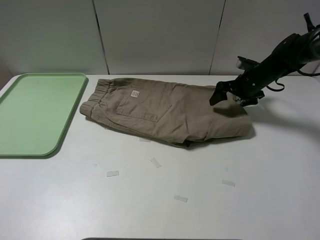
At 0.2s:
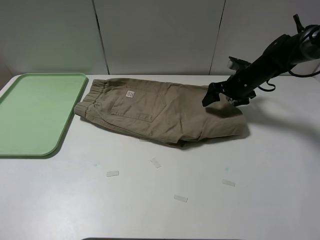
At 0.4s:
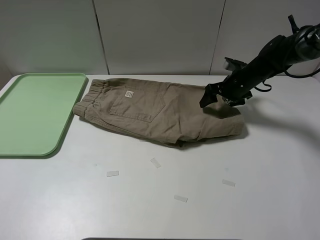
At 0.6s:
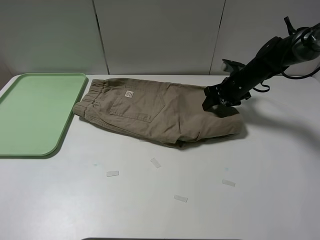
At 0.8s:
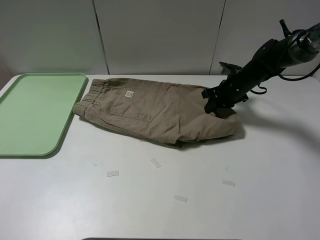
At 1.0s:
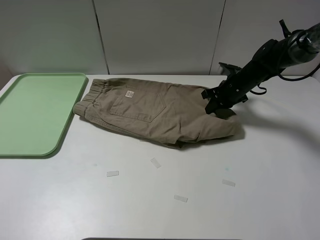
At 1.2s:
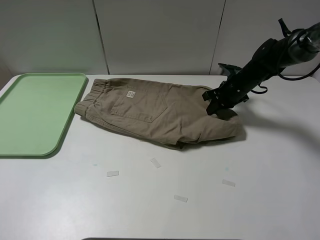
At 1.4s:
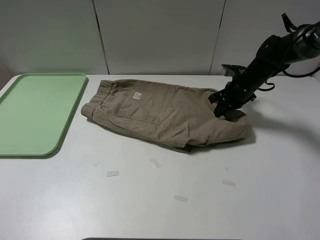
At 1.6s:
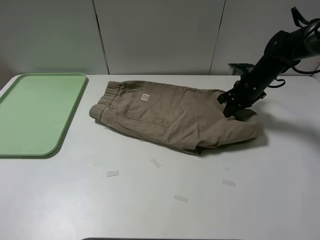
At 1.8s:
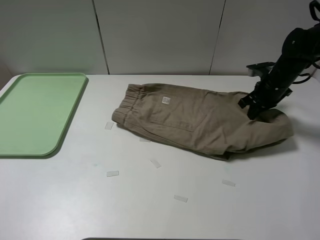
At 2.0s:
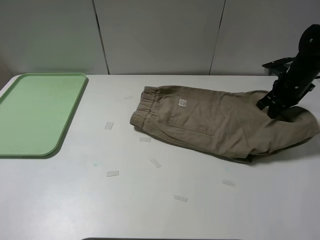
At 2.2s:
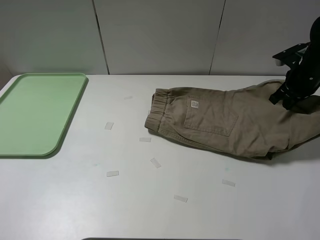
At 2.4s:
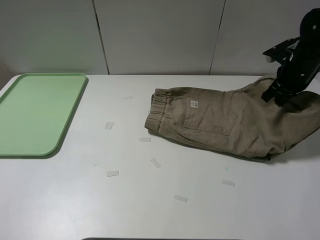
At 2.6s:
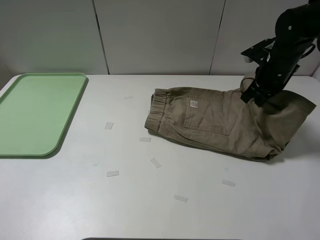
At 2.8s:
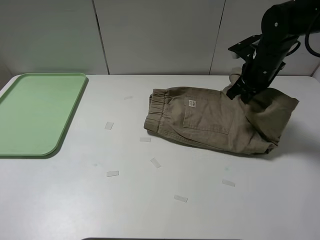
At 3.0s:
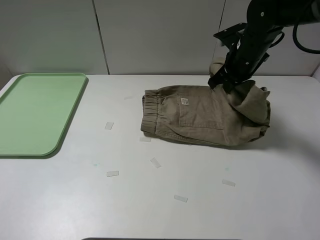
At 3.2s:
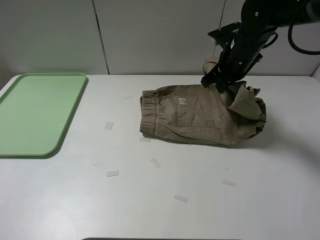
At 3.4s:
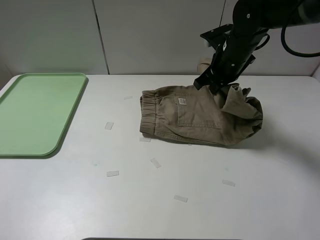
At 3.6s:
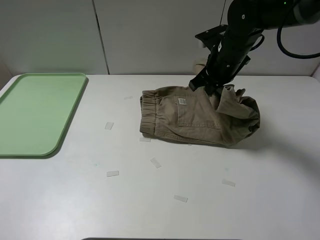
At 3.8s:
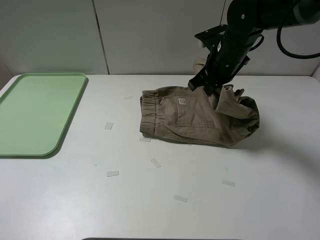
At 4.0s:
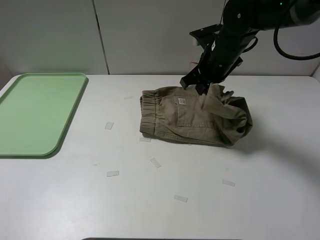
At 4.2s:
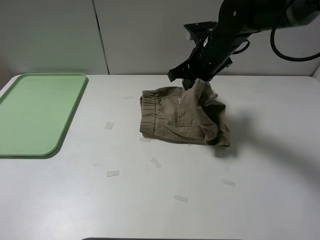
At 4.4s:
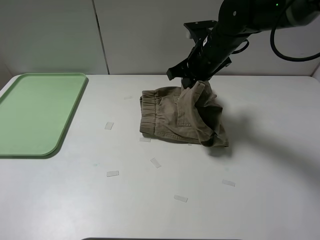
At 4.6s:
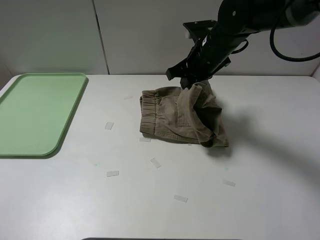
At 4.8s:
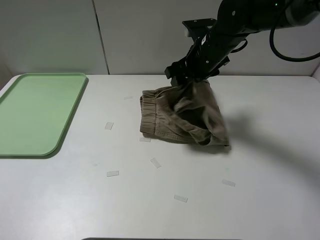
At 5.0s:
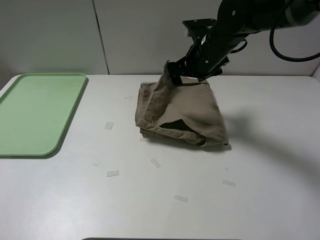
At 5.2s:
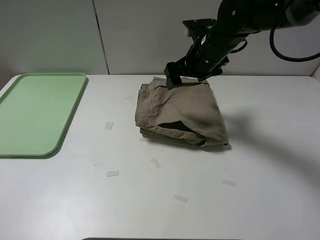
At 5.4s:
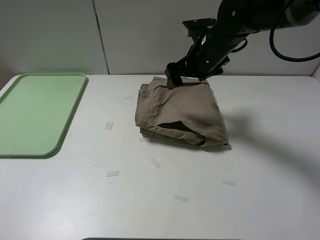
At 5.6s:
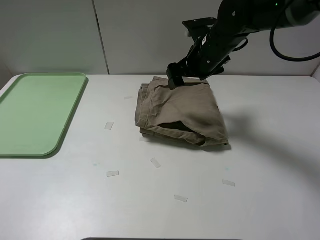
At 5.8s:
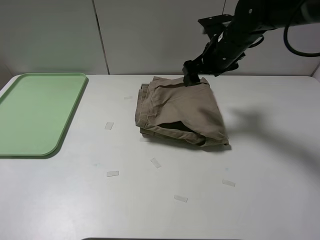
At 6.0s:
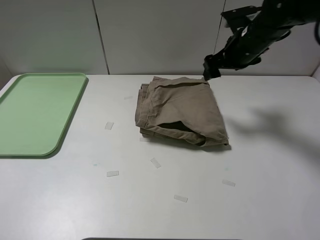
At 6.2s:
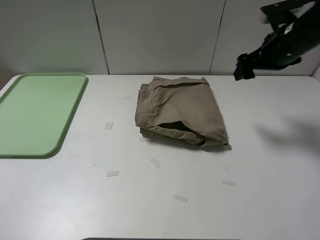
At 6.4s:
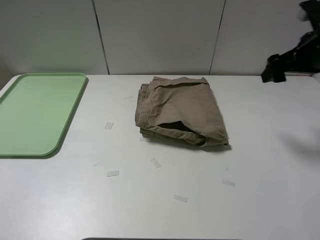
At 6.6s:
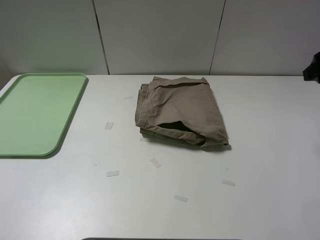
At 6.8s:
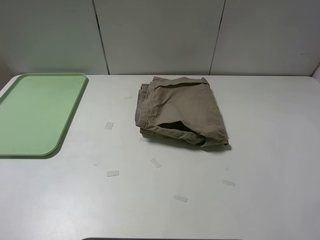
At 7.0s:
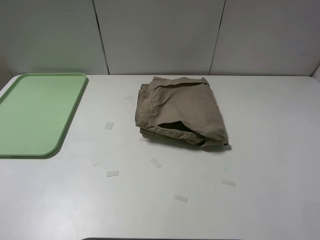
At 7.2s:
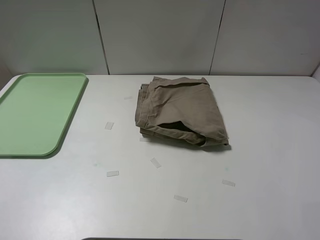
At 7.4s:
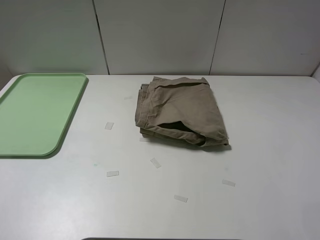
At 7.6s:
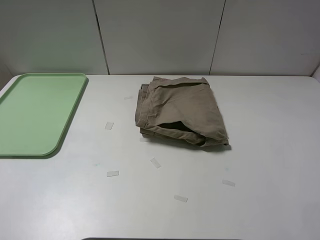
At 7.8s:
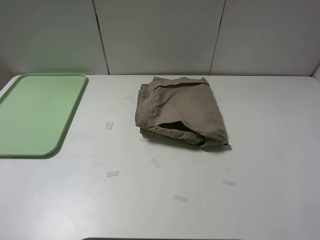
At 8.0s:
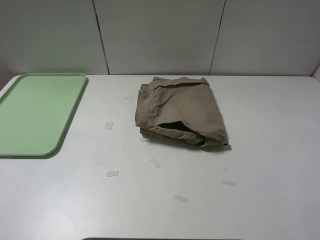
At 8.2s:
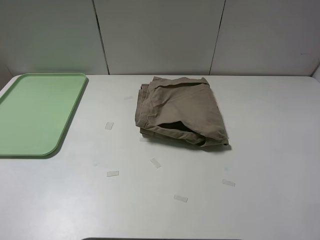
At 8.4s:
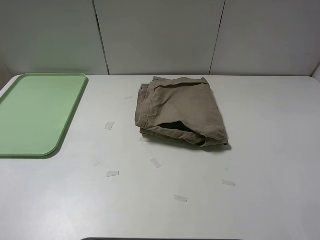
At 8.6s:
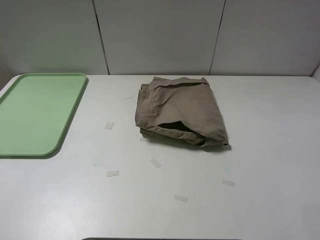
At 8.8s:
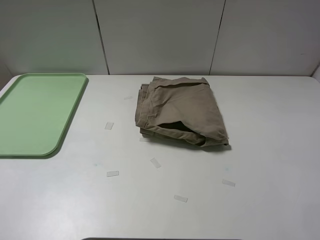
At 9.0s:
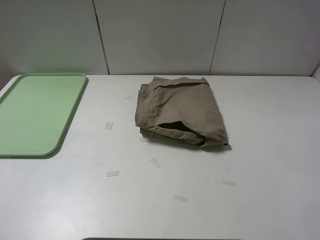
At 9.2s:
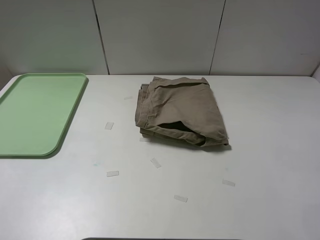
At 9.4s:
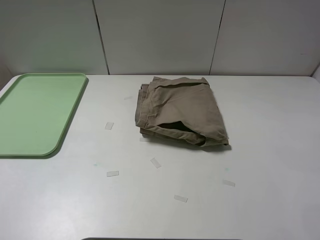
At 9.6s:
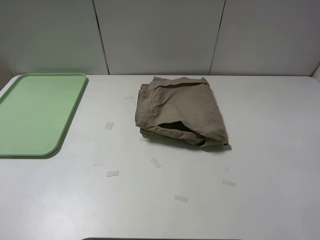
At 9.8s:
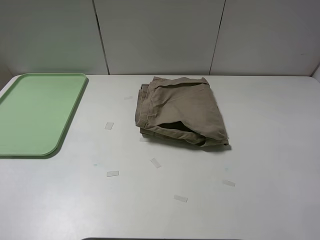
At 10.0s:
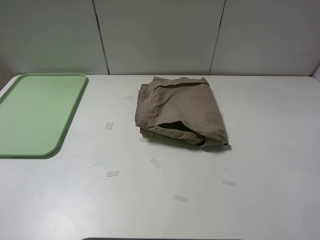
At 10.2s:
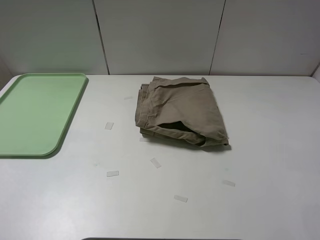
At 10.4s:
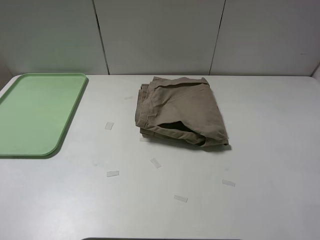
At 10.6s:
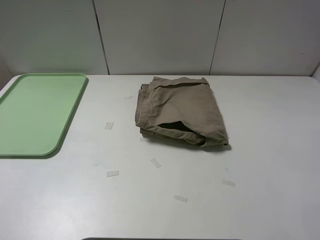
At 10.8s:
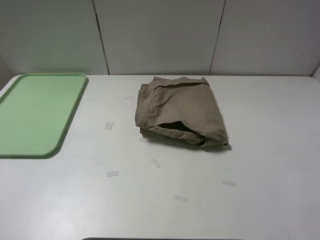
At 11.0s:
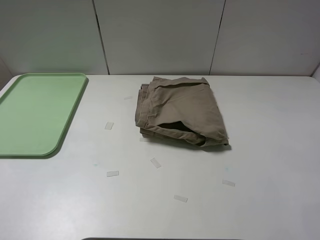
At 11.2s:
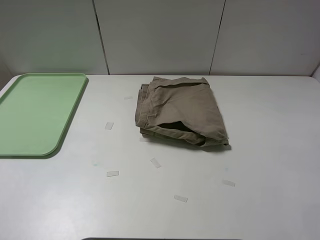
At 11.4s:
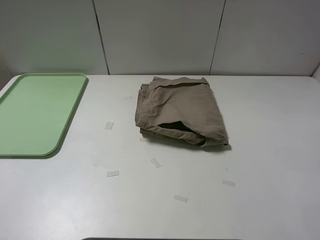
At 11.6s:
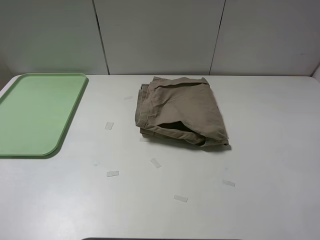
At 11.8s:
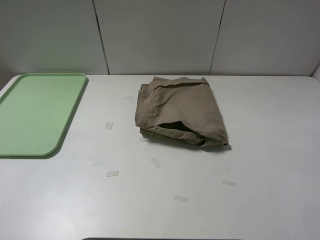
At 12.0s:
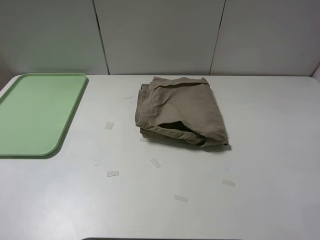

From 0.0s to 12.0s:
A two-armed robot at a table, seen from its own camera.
Task of the whole recording: fold the khaki jeans in half with two grippers, then fold them in half again, and use the left claw to place the folded fold khaki jeans on the tray.
Step, from 1.0s to 5.0s: Fold the khaki trousers from right to left with the right gripper.
From 0.0s to 1.6s: The right gripper closes.
From 1.6s to 3.0s: The right gripper shifts approximately 10 cm upward and to the left.
From 3.0s to 4.4s: The right gripper moves to the left, about 5 cm.
From 4.4s to 6.0s: The right gripper moves to the right, approximately 10 cm, and opens up.
From 6.0s to 7.6s: The right gripper heads backward and upward, covering about 40 cm.
From 10.4s to 12.0s: Both grippers stay put.

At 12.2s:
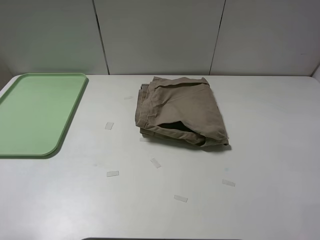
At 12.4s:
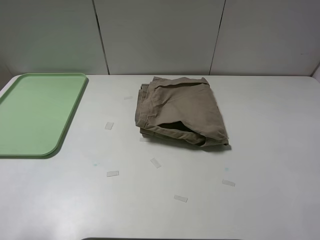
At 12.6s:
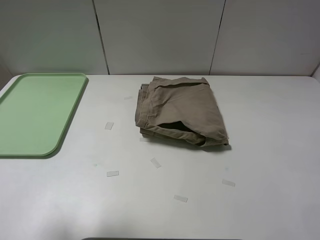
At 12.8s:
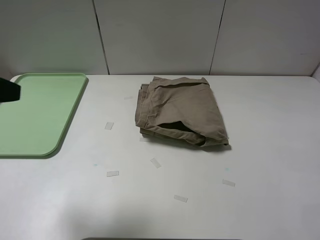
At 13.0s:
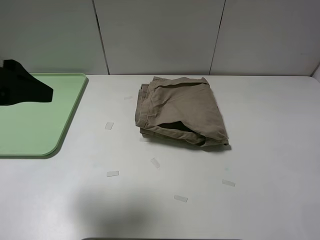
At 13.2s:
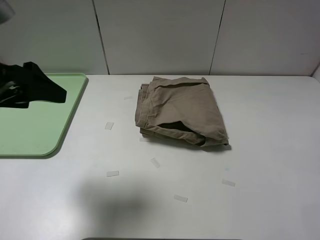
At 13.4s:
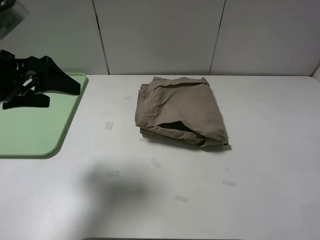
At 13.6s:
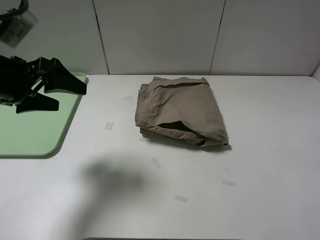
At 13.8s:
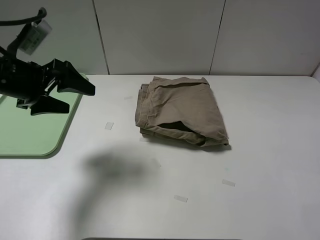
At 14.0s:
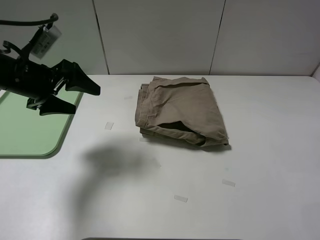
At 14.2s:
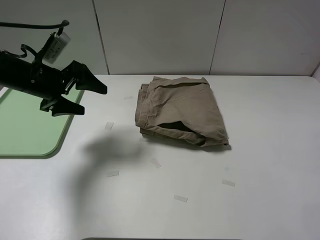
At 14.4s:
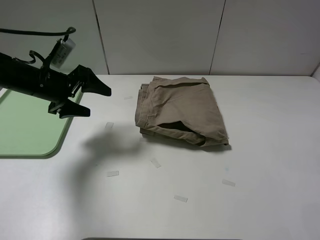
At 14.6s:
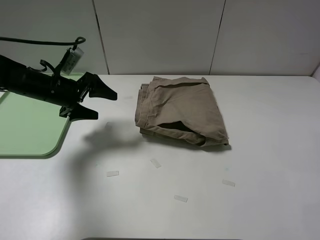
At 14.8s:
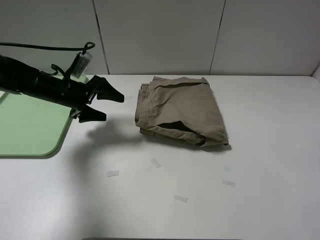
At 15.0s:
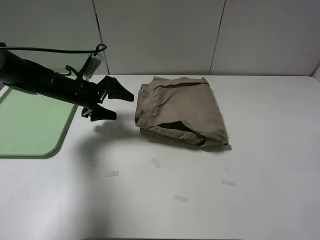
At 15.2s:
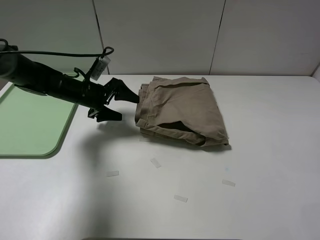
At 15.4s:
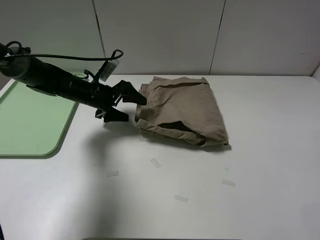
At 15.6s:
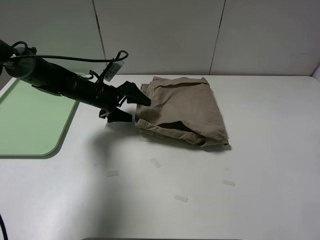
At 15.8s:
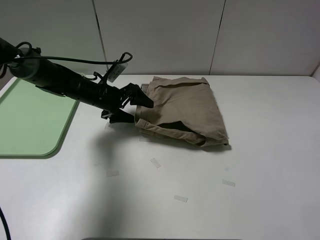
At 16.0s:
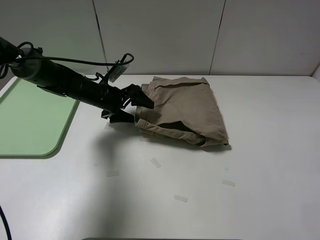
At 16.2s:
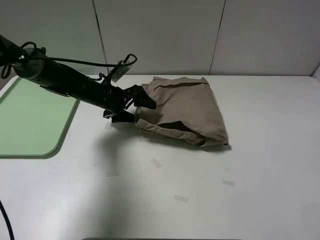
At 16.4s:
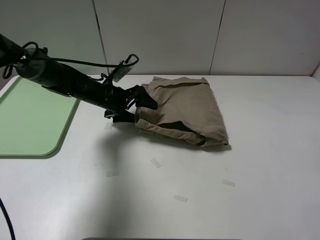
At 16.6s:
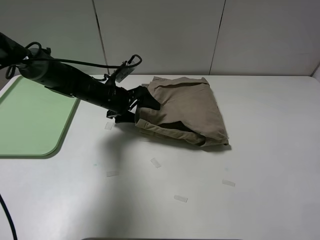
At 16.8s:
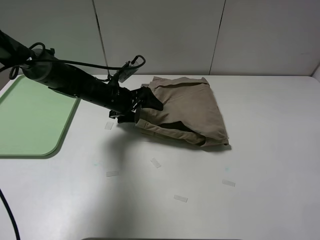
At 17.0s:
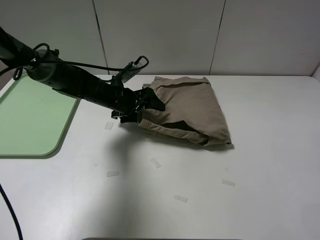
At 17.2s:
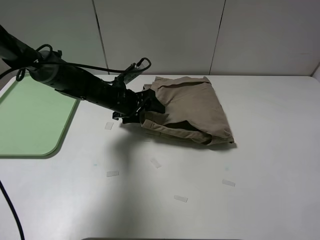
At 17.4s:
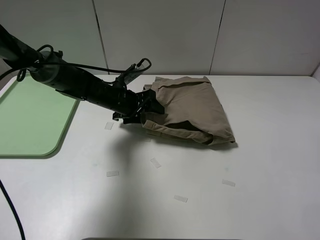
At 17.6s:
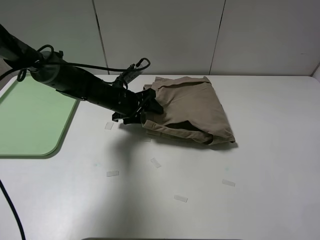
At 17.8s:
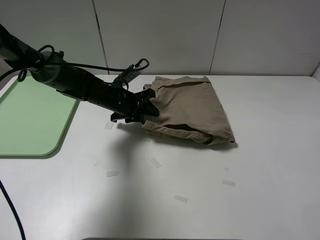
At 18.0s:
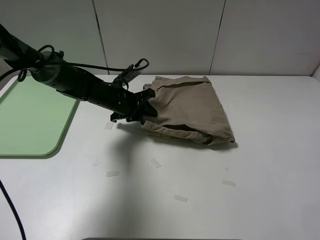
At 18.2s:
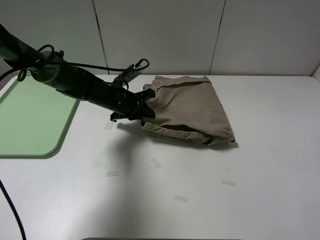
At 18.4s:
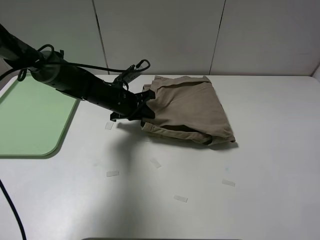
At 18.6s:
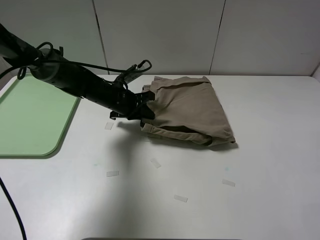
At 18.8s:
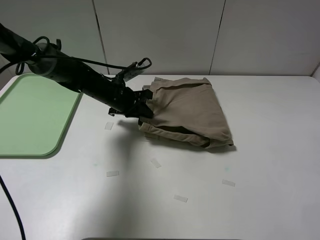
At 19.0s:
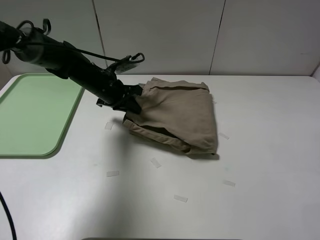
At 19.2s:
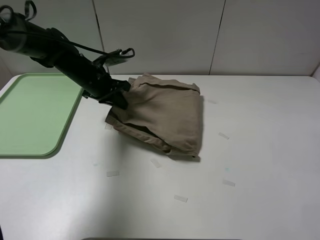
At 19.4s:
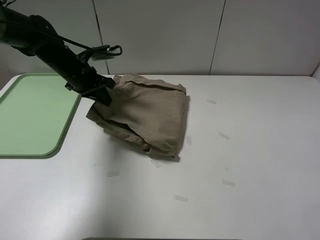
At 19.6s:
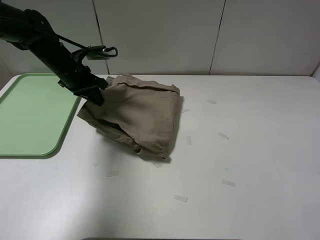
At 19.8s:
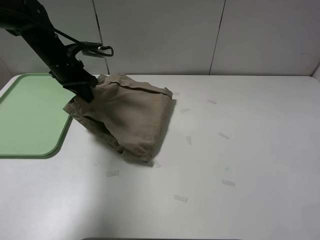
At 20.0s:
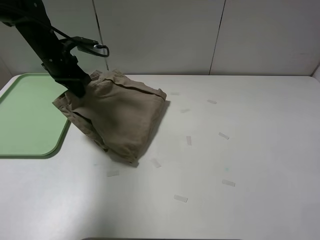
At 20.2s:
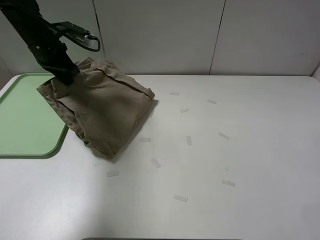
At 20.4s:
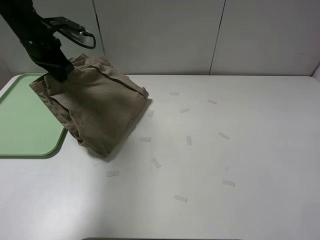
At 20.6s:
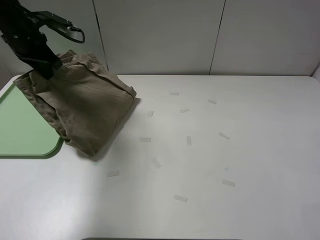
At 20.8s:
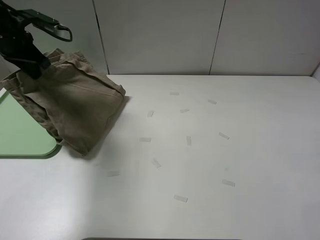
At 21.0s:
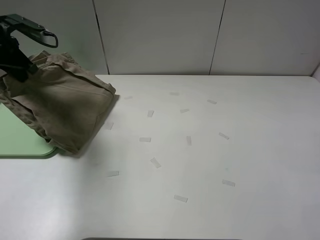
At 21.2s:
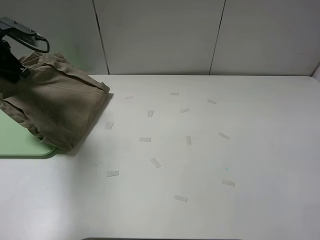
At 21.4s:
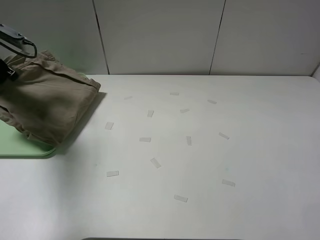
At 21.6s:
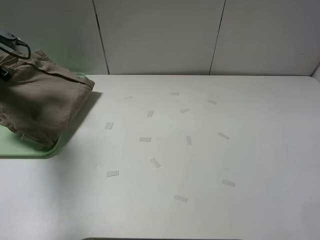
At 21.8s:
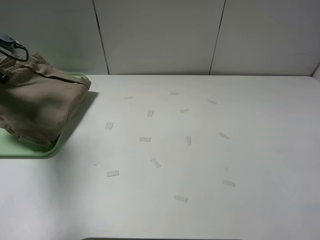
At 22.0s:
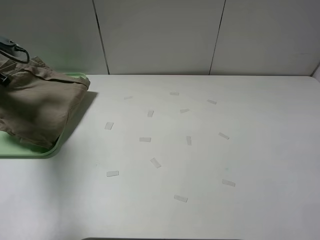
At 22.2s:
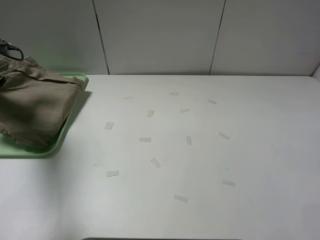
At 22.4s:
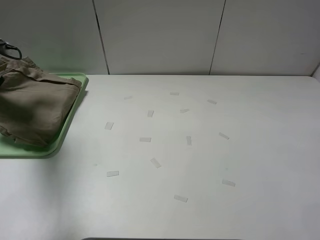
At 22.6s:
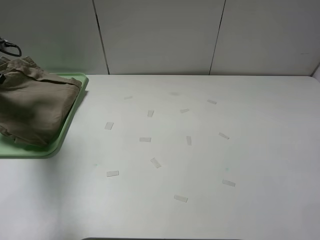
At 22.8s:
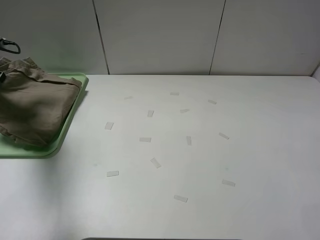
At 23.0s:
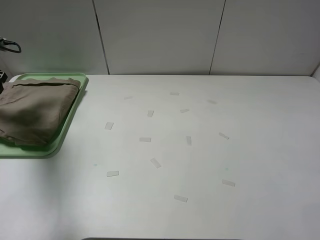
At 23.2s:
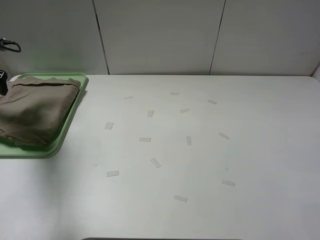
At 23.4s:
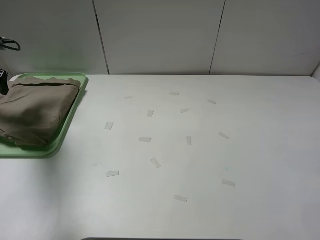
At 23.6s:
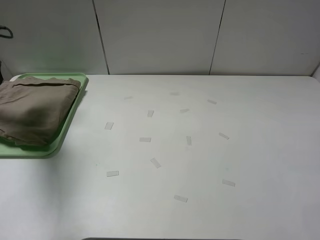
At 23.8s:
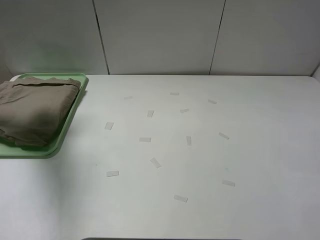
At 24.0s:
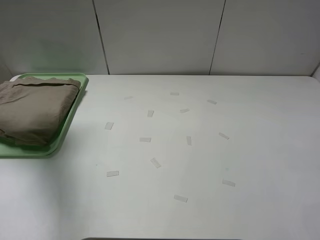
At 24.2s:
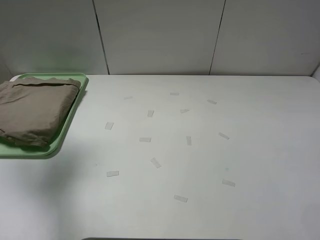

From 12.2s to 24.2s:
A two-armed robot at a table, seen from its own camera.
Task of the whole recording: fold the khaki jeans in half with two grippers, then fold them in half again, and use the left claw to place the folded fold khaki jeans on the tray.
Step, from 12.2s to 18.4s: Grasp the khaki trousers with the left gripper.
Step, from 18.6s to 23.0s: Place the folded khaki trousers on the green tray with the left gripper.
From 12.2s to 13.8s: The left gripper moves forward, approximately 25 cm.
From 13.8s to 15.2s: The left gripper shifts about 20 cm downward, forward and to the right.
From 15.2s to 16.6s: The left gripper travels to the right by roughly 5 cm.
From 16.6s to 18.2s: The left gripper closes its fingers.
From 18.2s to 19.8s: The left gripper travels to the left and upward by about 15 cm.
From 19.8s to 21.2s: The left gripper moves to the left, about 15 cm.
From 21.2s to 22.6s: The left gripper is displaced to the left by about 5 cm.
From 22.6s to 24.2s: The left gripper travels upward and backward by about 20 cm, and opens up.
